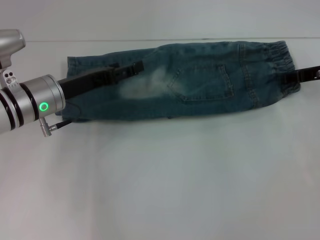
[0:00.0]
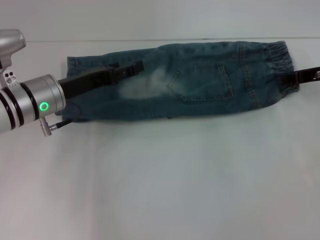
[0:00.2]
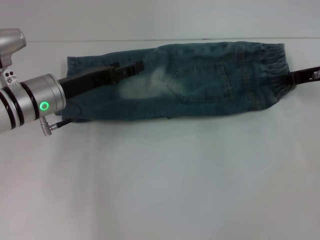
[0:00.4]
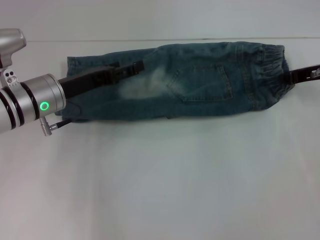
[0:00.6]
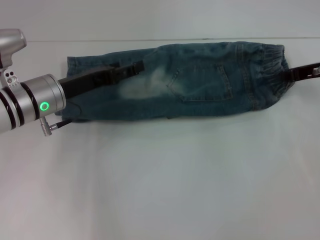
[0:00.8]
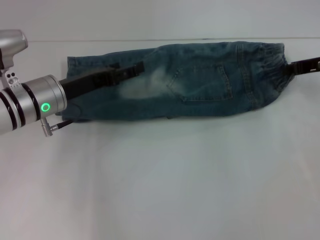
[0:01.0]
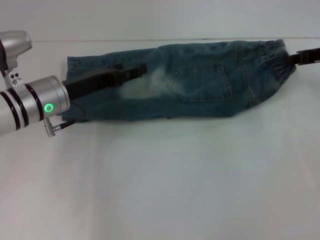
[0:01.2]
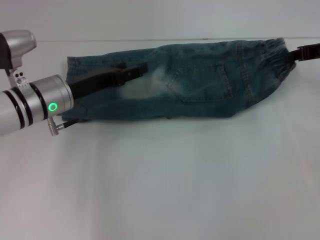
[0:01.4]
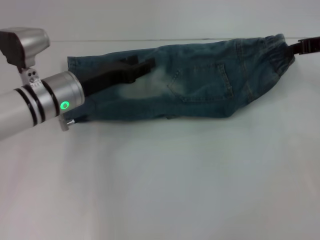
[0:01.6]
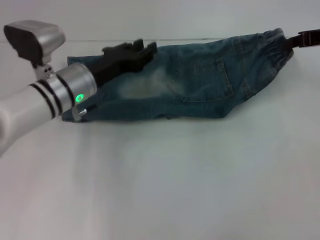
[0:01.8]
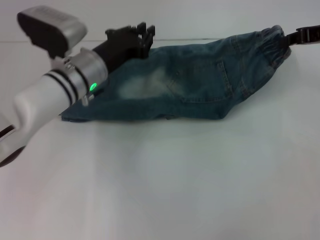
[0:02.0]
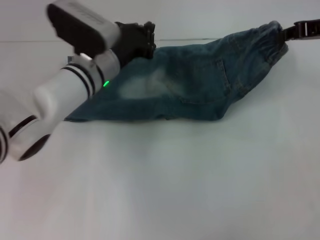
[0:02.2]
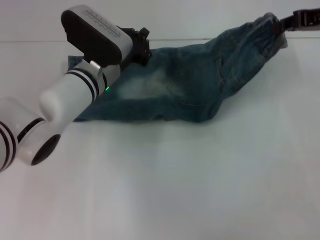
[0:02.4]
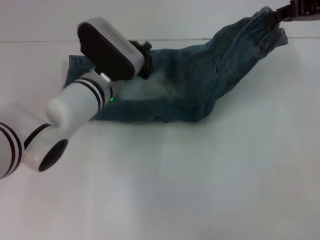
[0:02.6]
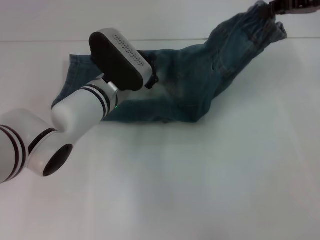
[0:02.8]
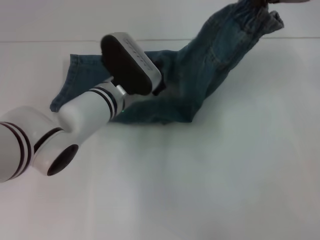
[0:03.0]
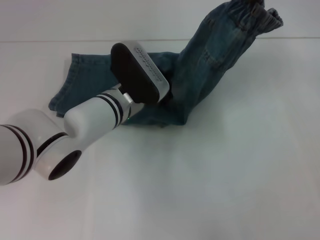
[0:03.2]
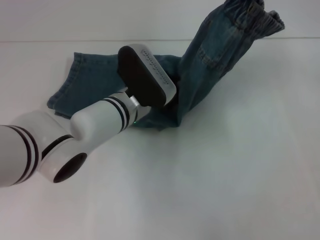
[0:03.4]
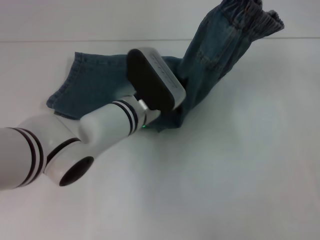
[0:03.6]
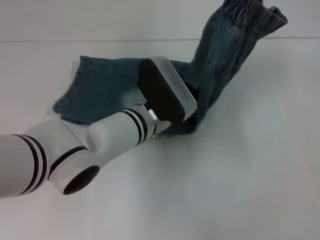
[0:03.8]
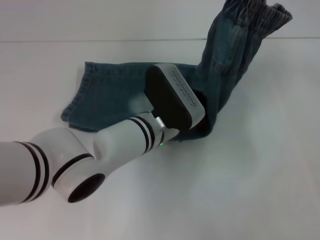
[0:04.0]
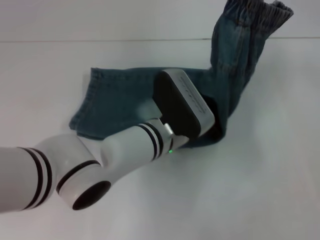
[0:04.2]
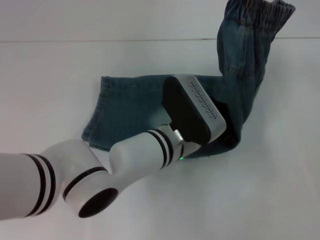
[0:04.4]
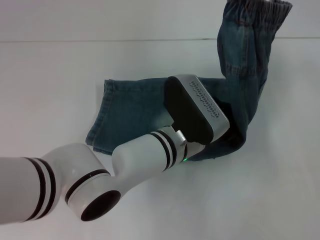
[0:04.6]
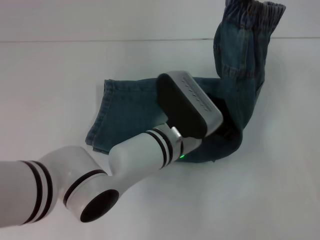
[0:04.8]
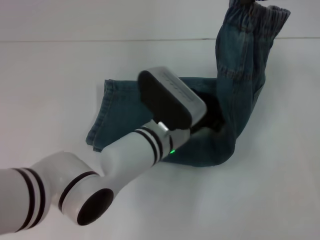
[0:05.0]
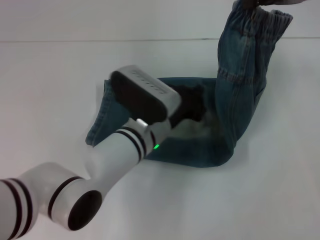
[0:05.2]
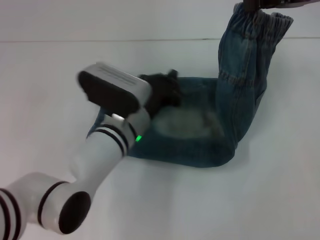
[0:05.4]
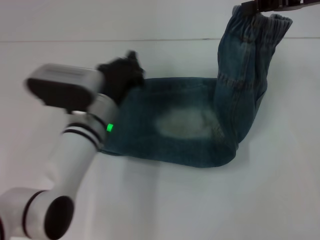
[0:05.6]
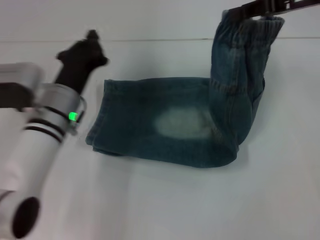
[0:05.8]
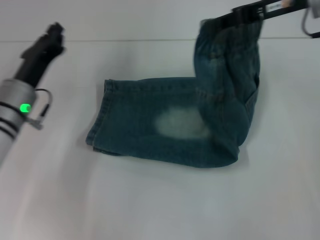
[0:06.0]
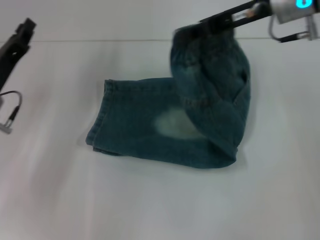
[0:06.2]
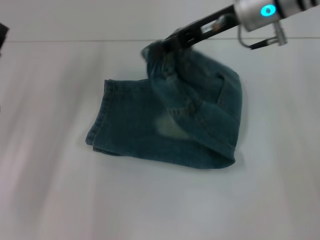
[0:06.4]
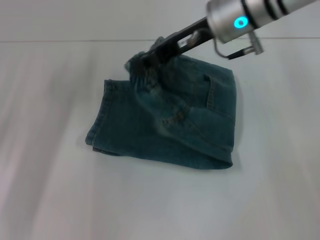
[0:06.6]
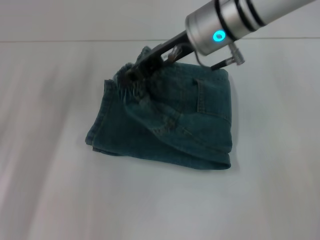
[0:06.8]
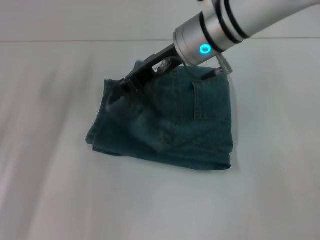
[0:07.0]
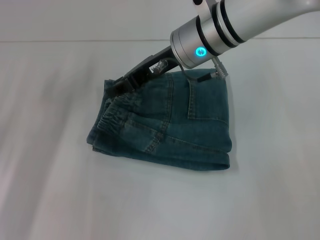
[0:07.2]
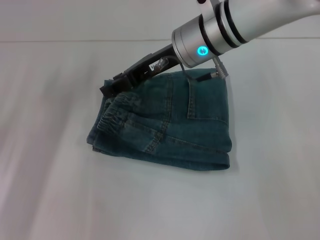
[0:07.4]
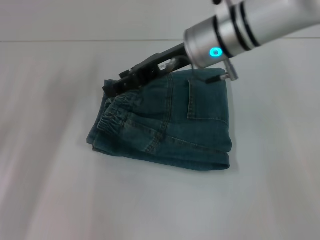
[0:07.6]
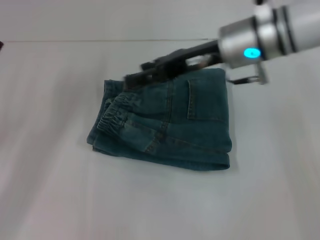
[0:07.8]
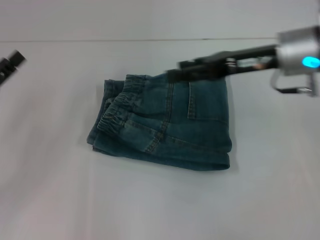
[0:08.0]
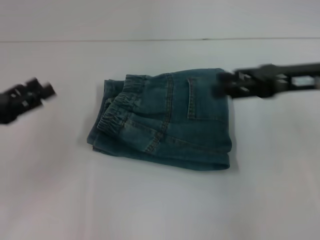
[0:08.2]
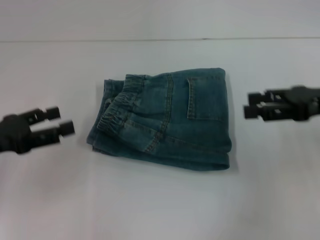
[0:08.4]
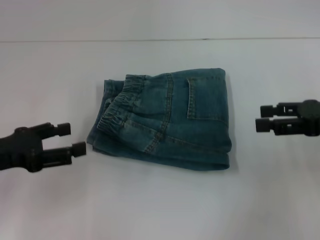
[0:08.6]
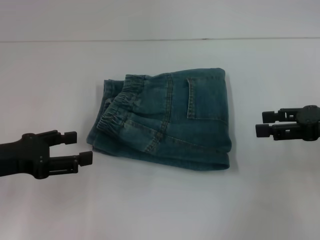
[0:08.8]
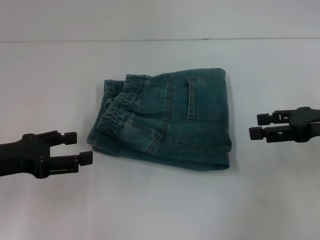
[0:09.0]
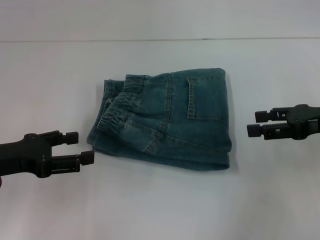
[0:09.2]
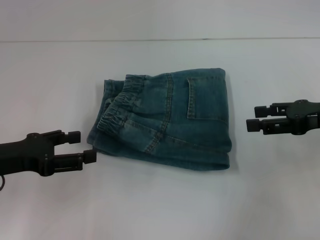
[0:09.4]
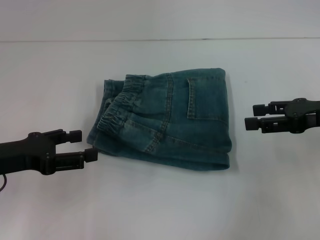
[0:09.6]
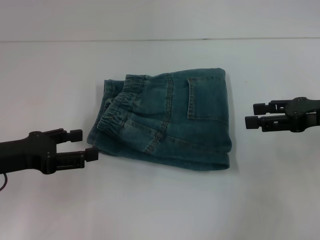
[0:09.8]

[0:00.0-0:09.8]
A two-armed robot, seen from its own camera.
Step, 0:00.0 to 0:05.0: Press the middle of the pants with your left hand.
Step, 0:05.2 to 0:07.6: Fold to the left with your right hand.
0:00.0 to 0:01.4: The right gripper moves approximately 5 cm, and closes.
0:01.4 to 0:02.8: The right gripper shifts about 10 cm upward; the left gripper goes approximately 10 cm to the right, and closes up.
0:02.8 to 0:04.2: The left gripper goes some 10 cm to the right and backward.
0:04.2 to 0:05.6: The left gripper is displaced to the left by roughly 10 cm.
0:05.6 to 0:07.0: The grippers both shift to the left by about 20 cm. The left gripper opens its fingers.
0:07.0 to 0:08.4: The left gripper heads upward, covering about 5 cm. The right gripper is displaced to the right by about 25 cm, and opens.
0:08.4 to 0:09.8: The grippers stay close to where they were, moving slightly.
